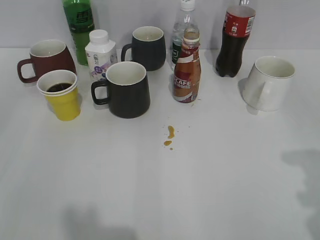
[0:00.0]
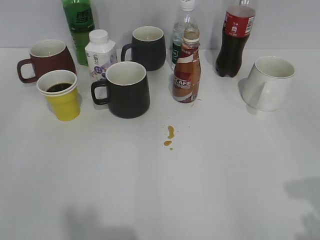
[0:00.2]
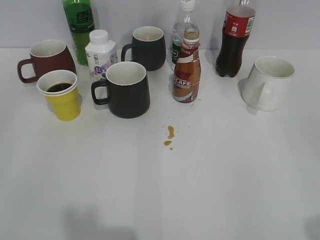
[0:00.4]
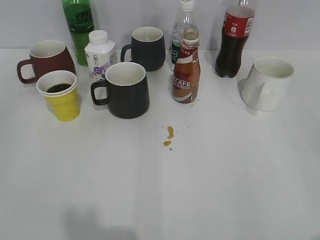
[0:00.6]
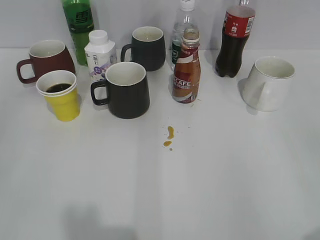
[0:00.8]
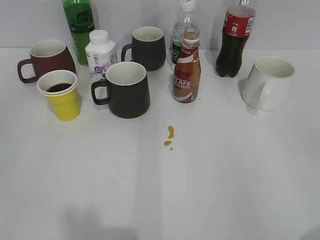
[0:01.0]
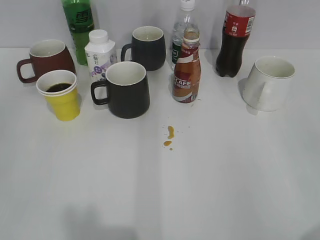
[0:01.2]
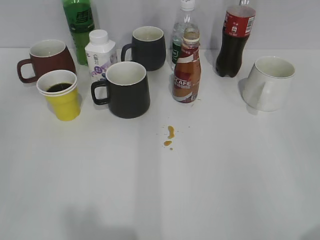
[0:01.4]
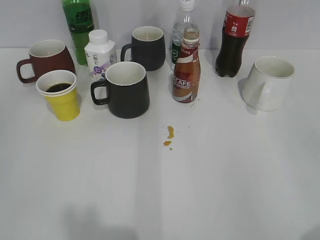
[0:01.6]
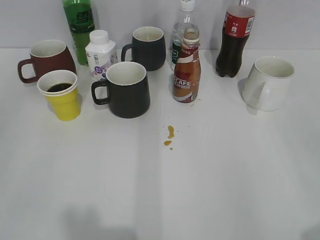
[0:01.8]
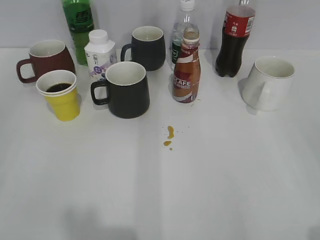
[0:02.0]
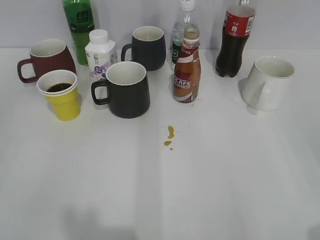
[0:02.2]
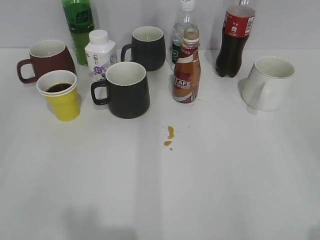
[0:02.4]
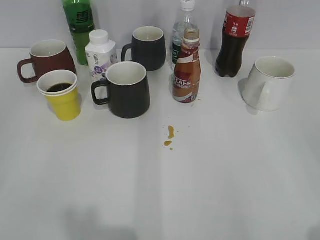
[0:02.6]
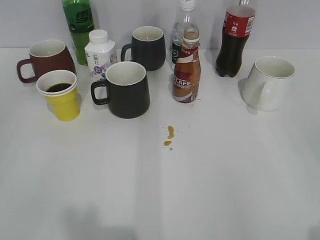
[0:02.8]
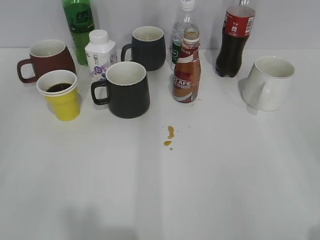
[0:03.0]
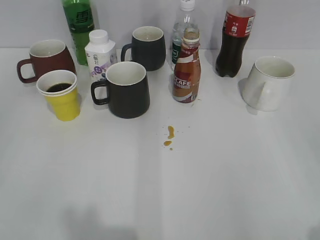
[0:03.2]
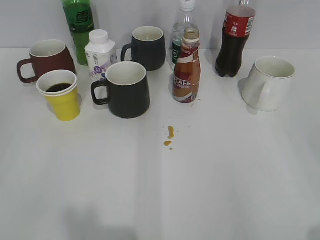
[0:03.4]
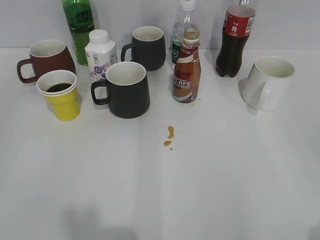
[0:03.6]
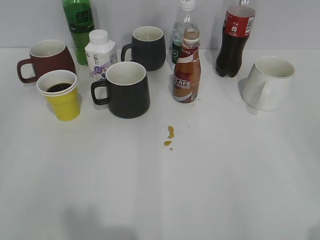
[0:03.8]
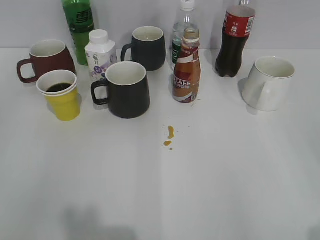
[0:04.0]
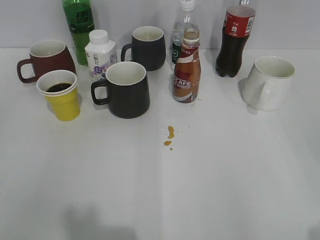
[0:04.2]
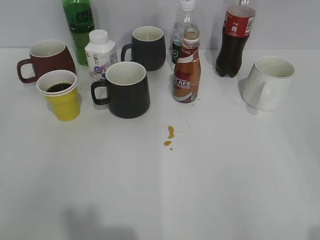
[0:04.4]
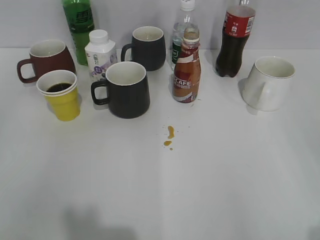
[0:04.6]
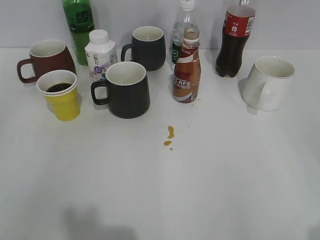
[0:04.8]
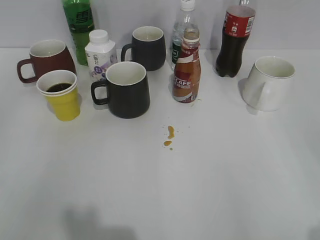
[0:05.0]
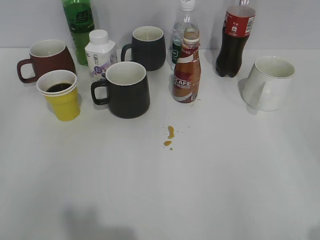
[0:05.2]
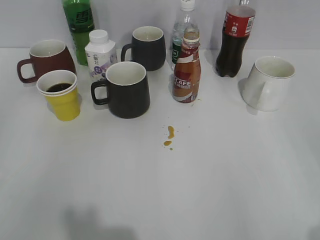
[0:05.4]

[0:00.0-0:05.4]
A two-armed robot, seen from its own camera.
0:02.8 to 0:05.4: Both grippers stay put.

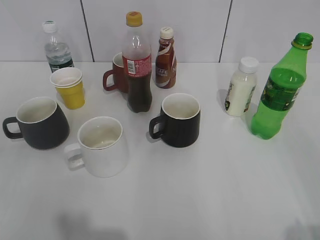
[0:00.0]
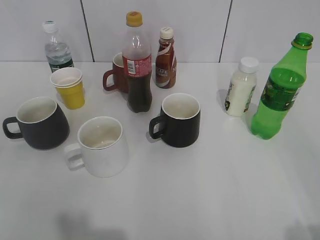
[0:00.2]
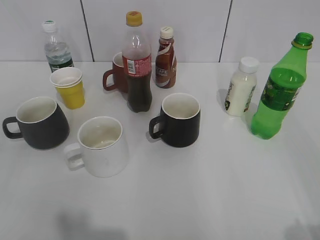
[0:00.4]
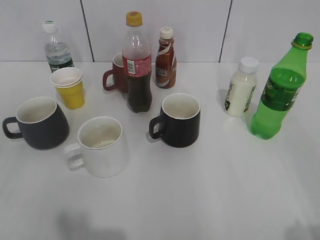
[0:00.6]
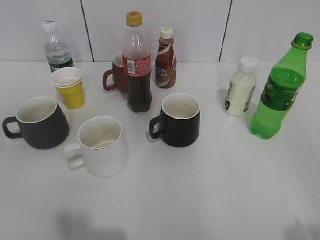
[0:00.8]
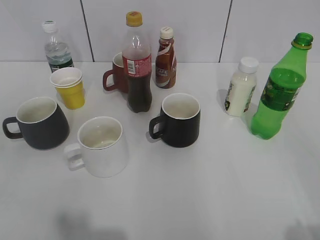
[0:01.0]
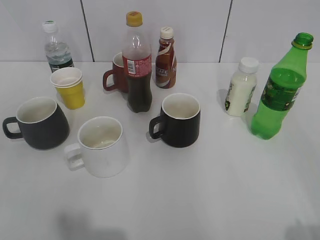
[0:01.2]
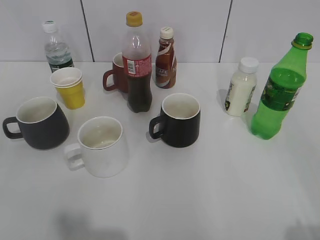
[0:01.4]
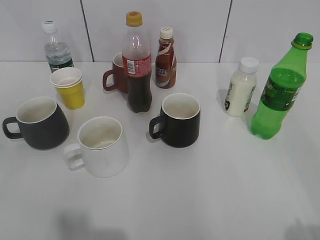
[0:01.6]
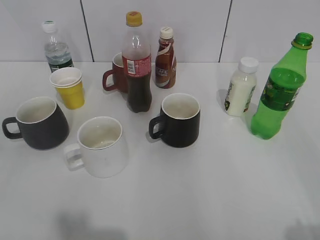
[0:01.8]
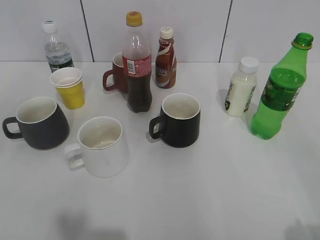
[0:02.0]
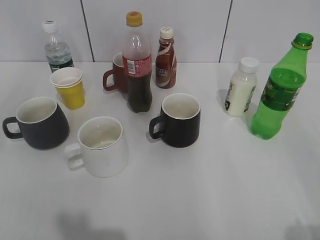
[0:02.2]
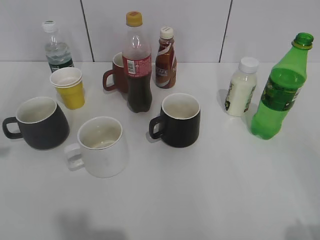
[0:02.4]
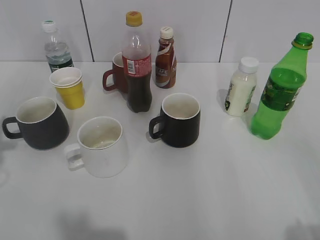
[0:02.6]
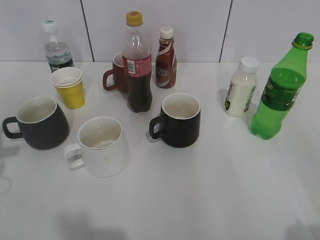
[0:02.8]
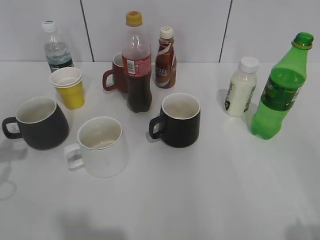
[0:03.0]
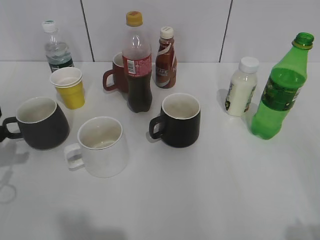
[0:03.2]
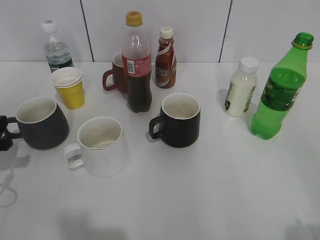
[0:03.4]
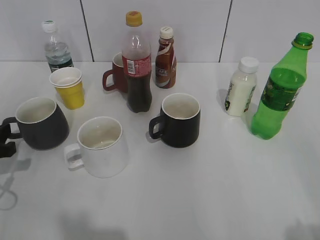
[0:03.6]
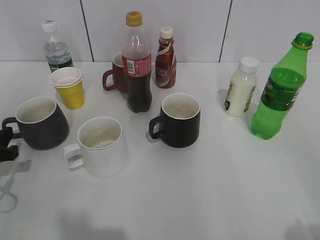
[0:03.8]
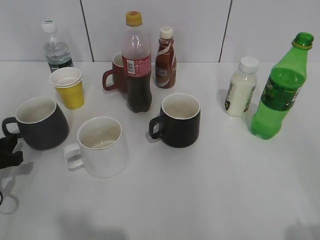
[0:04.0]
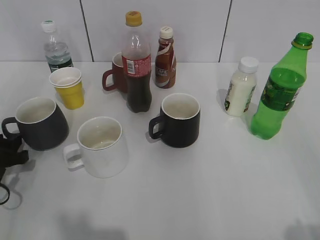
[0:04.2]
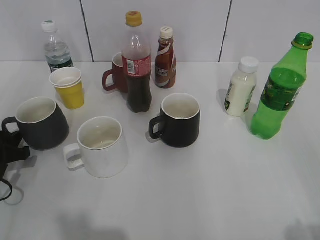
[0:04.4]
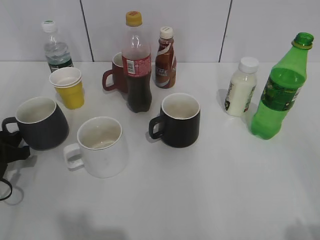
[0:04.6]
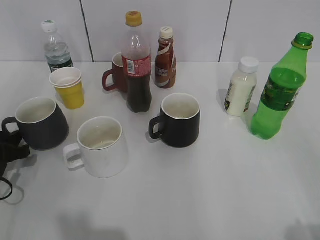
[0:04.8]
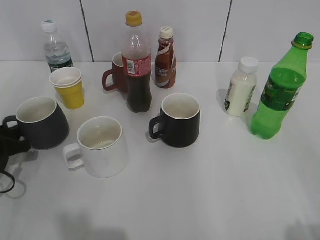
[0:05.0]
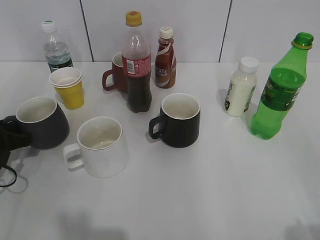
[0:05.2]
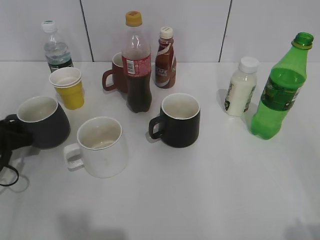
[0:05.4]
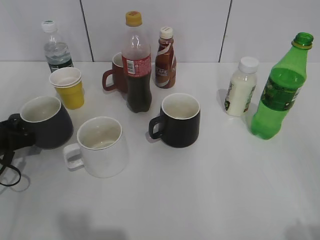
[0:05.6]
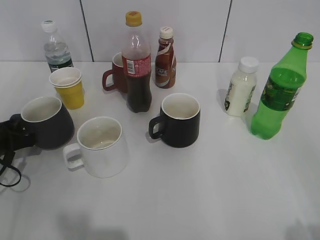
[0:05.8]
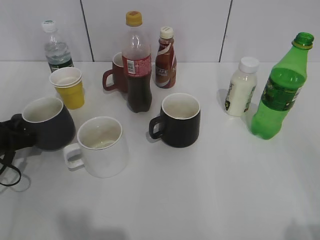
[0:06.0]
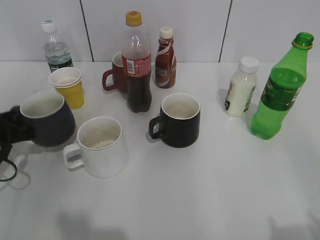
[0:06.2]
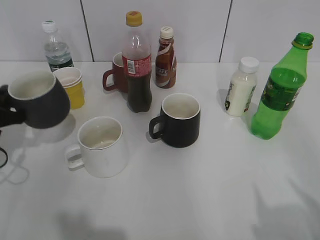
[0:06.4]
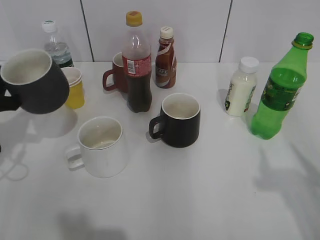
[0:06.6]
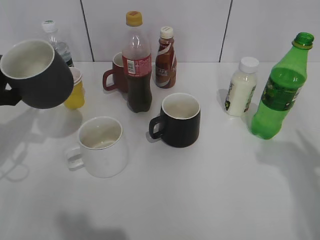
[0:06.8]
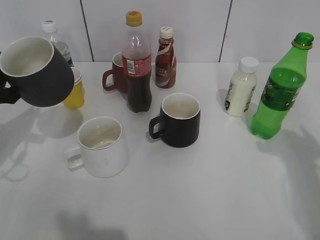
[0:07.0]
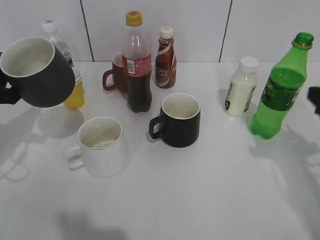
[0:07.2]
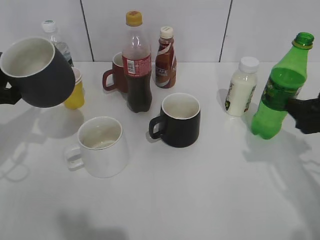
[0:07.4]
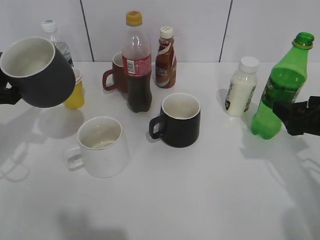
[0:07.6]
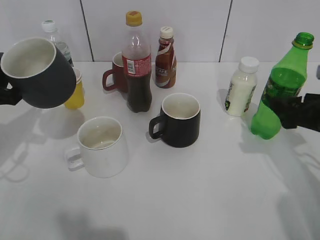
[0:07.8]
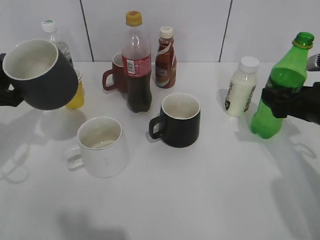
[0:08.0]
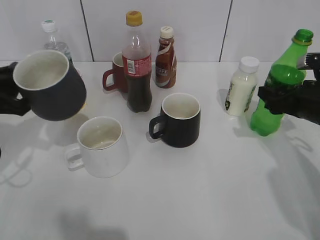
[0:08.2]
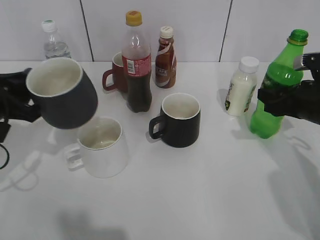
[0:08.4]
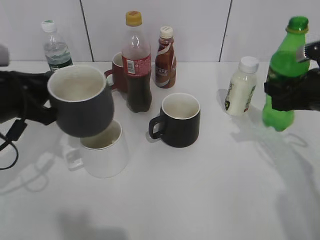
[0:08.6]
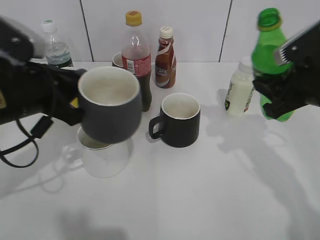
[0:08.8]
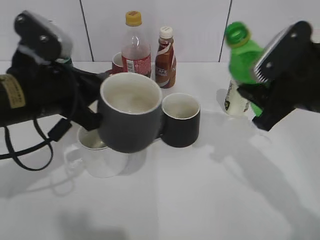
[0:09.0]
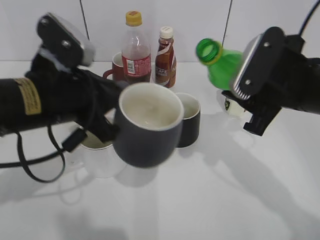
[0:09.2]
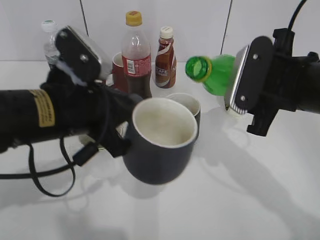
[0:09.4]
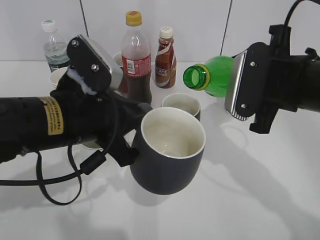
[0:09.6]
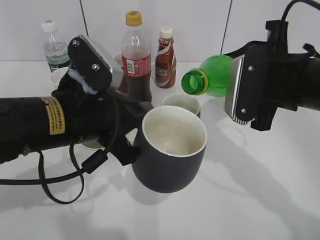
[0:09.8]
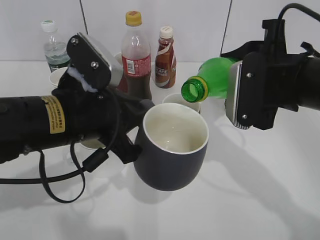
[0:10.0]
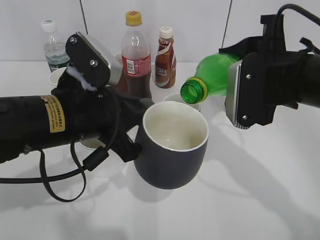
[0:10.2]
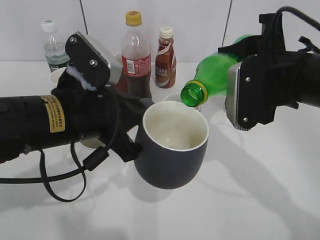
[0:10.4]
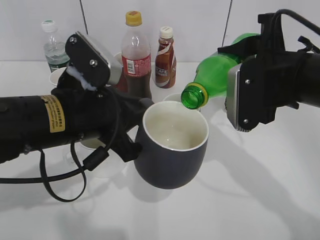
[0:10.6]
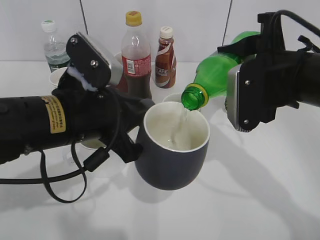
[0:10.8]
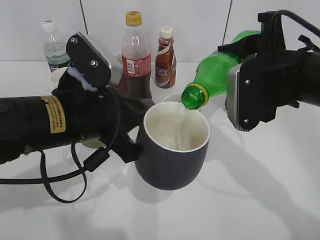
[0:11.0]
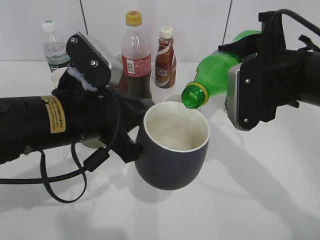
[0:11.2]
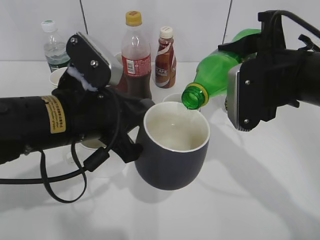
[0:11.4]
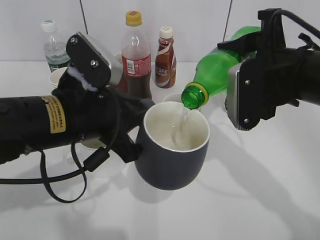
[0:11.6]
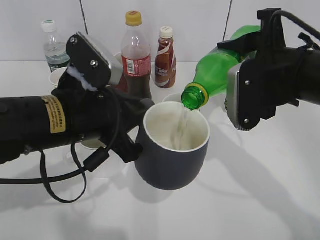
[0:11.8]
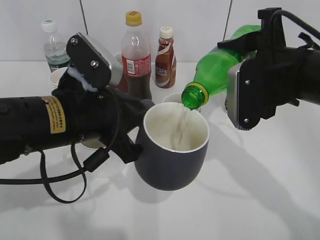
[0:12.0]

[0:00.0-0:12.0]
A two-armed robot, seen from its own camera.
Step, 0:03.0 to 0:05.8: Grasp the grey cup with left gripper.
Step, 0:06.2 to 0:06.6: Lift the grey cup with left gripper.
Step, 0:06.8 to 0:08.0: Grasp the bottle with sprite with right gripper.
0:01.6 to 0:03.0: The left gripper moves forward and downward, some 25 cm, and opens up.
0:03.0 to 0:04.4: The left gripper moves downward, about 10 cm.
0:04.4 to 0:06.0: The left gripper closes its fingers.
0:06.0 to 0:07.6: The left gripper goes some 10 cm upward. Meanwhile the right gripper goes some 30 cm forward and downward.
0:07.6 to 0:09.0: The left gripper heads to the right, covering approximately 15 cm. Meanwhile the right gripper shifts approximately 10 cm to the left and upward, and closes up.
0:09.0 to 0:10.4: The left gripper shifts by approximately 5 cm.
0:10.4 to 0:12.0: Both grippers stay about where they are.

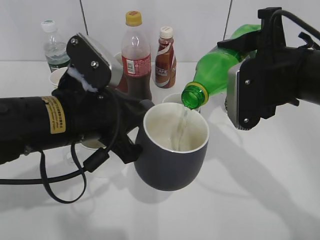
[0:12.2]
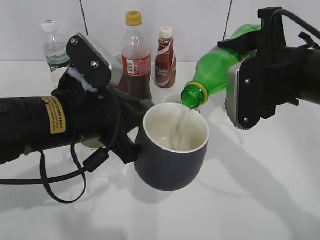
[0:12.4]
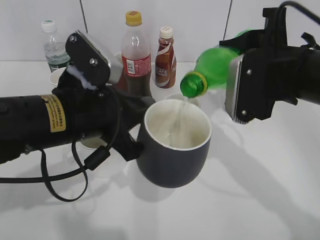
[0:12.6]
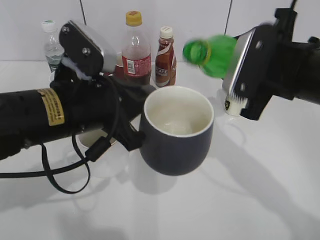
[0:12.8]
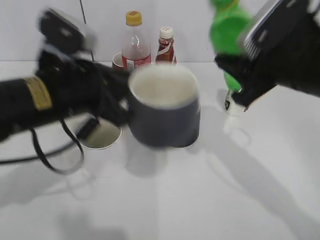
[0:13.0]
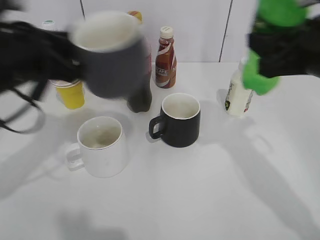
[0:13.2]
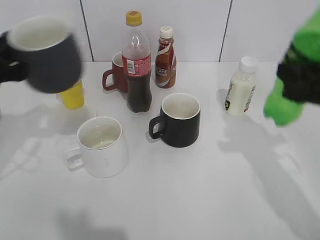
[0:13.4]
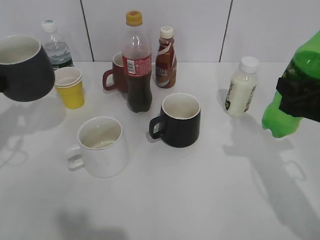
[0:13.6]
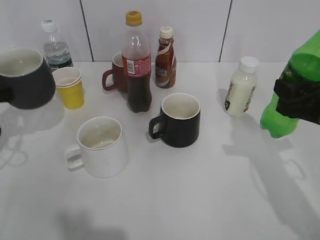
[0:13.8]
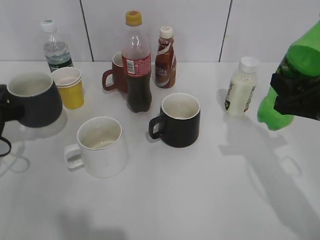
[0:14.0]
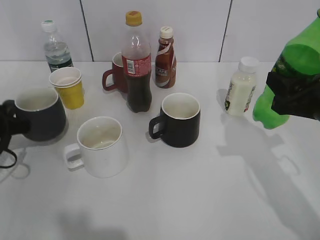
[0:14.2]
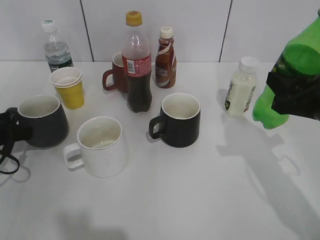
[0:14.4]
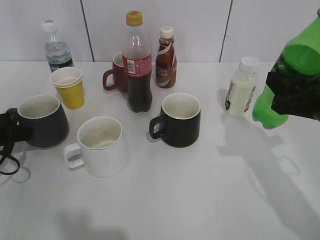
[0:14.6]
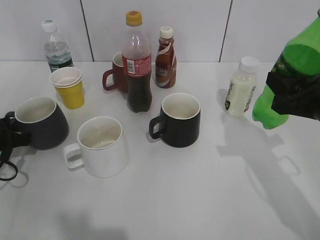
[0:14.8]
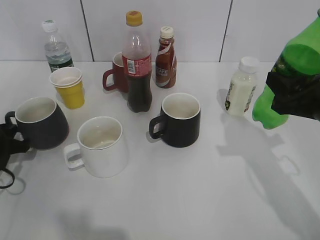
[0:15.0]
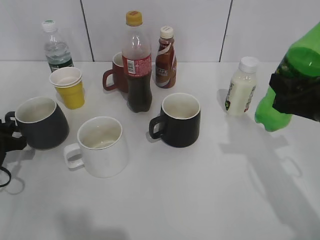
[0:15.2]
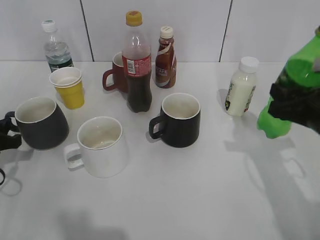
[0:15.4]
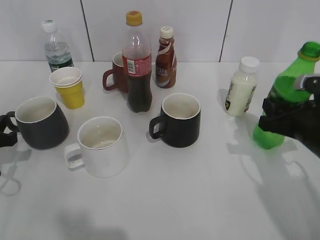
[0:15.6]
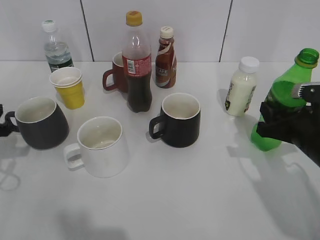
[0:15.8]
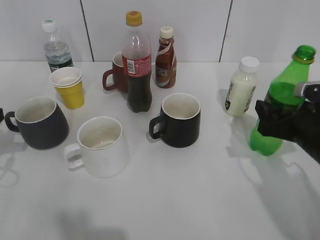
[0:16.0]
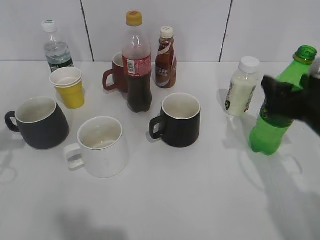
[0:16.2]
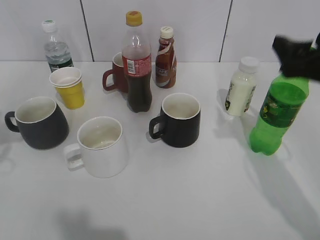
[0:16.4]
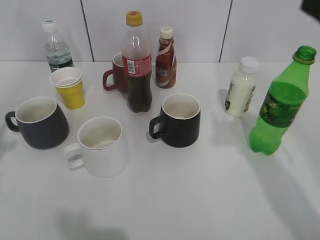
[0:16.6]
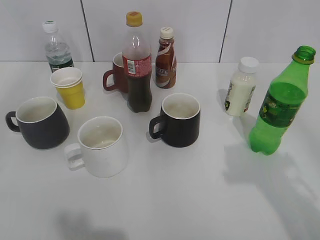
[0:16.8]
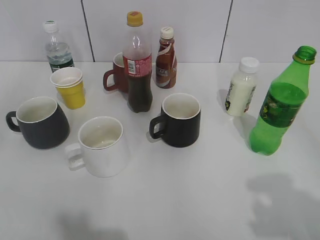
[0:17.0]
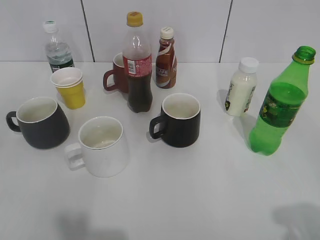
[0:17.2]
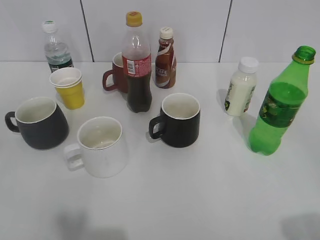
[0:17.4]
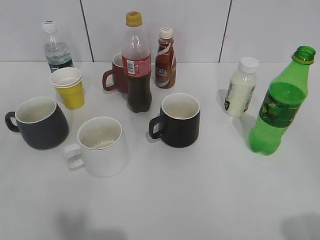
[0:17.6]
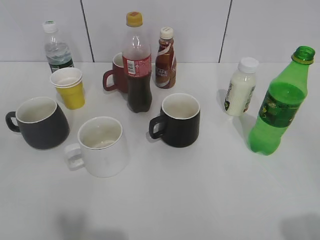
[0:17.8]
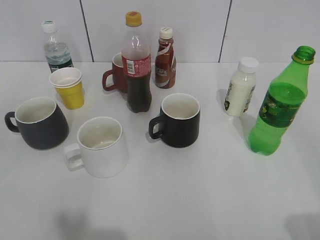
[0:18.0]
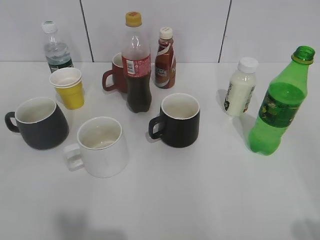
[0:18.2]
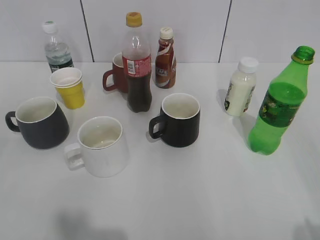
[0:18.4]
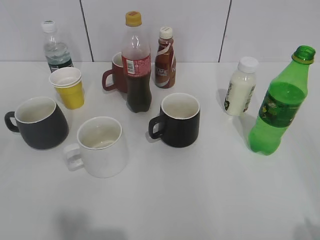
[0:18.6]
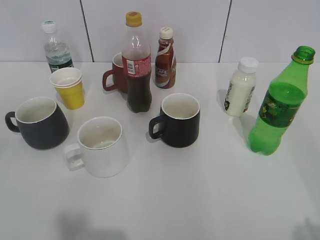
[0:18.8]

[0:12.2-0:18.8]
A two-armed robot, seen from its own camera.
Step, 0:13.0 to 0:16.2: Place the sprite bottle on the table with right gripper.
0:12.2 to 0:13.8: The right gripper heads to the right, covering approximately 10 cm, while the left gripper moves to the left, about 20 cm.
0:13.8 to 0:15.4: The left gripper travels downward by roughly 5 cm, and opens.
0:15.4 to 0:17.2: The two grippers go roughly 30 cm backward and upward. The right gripper opens.
